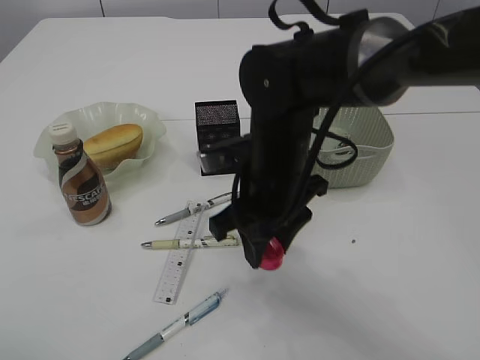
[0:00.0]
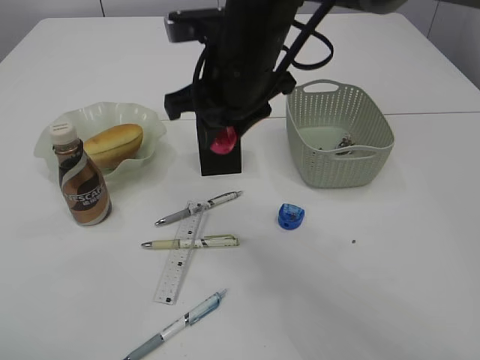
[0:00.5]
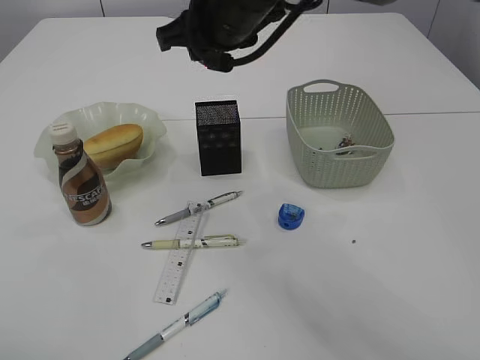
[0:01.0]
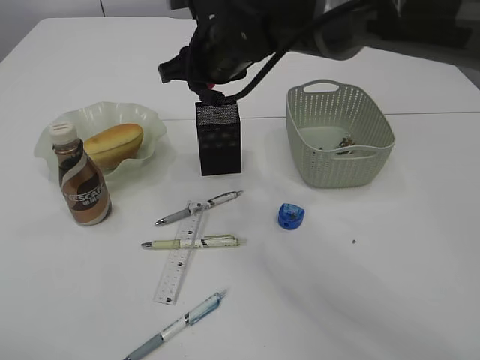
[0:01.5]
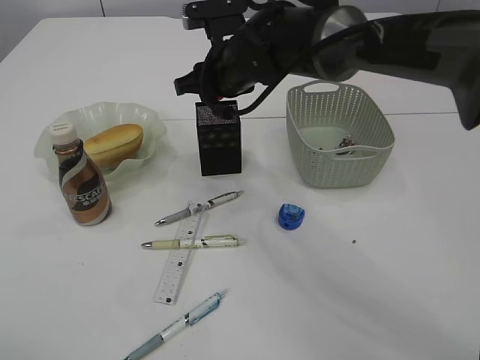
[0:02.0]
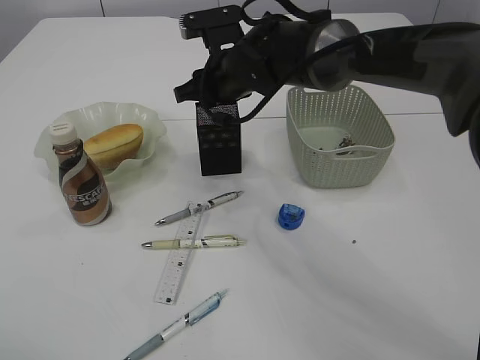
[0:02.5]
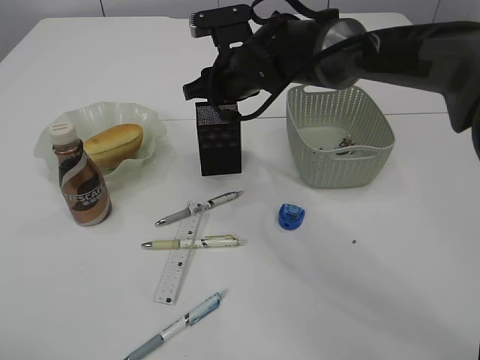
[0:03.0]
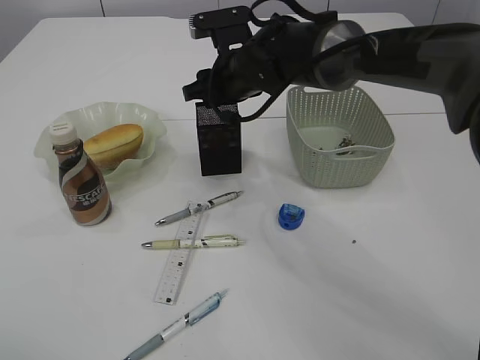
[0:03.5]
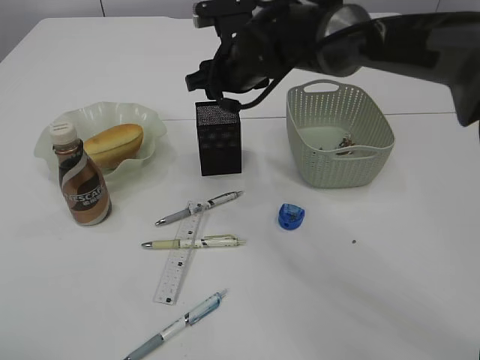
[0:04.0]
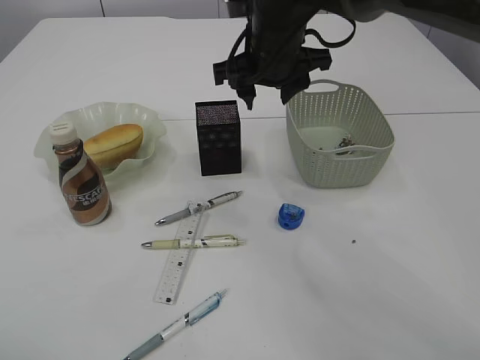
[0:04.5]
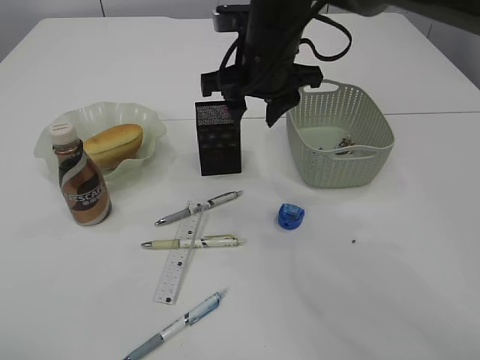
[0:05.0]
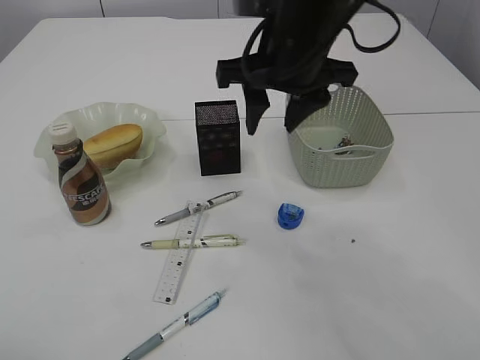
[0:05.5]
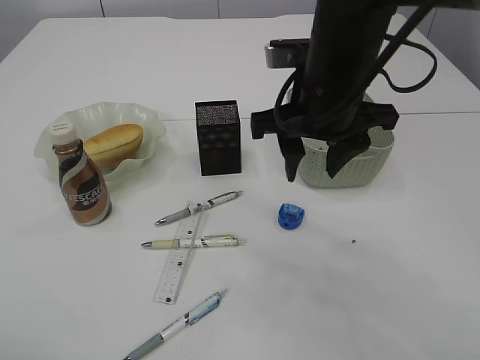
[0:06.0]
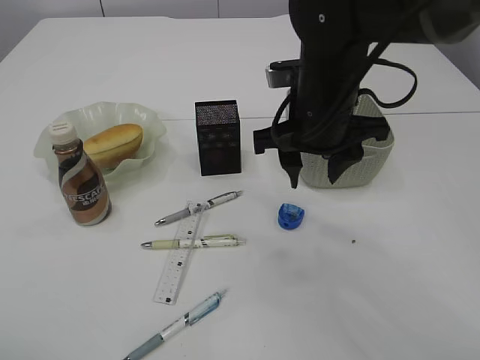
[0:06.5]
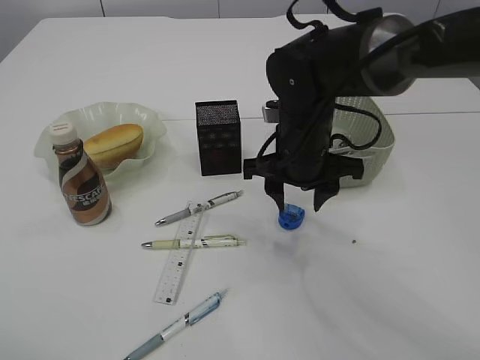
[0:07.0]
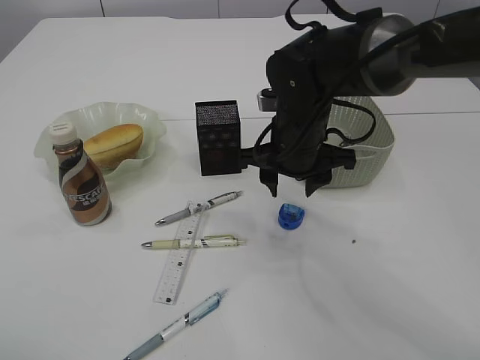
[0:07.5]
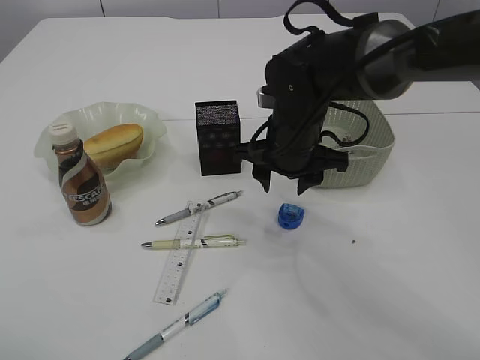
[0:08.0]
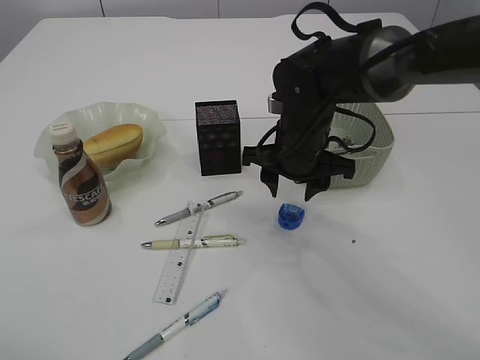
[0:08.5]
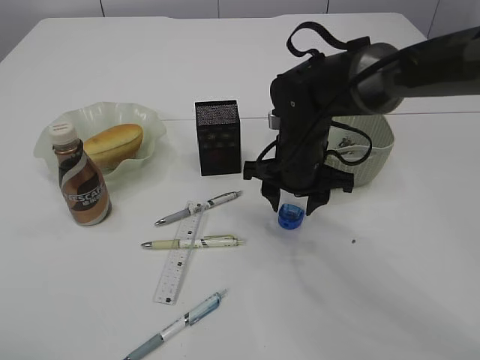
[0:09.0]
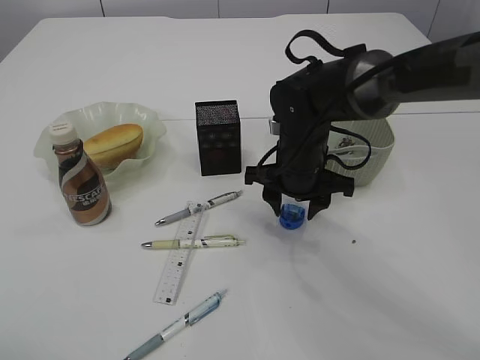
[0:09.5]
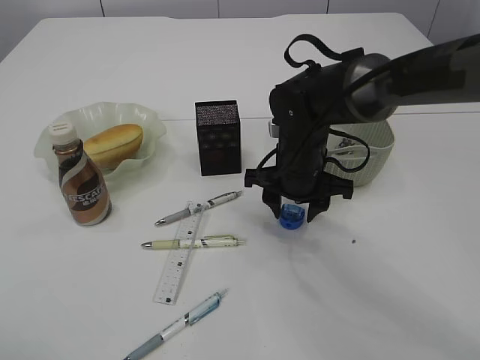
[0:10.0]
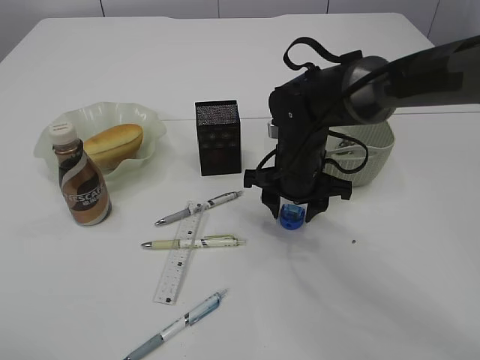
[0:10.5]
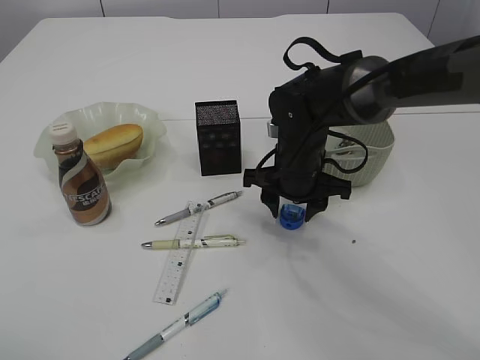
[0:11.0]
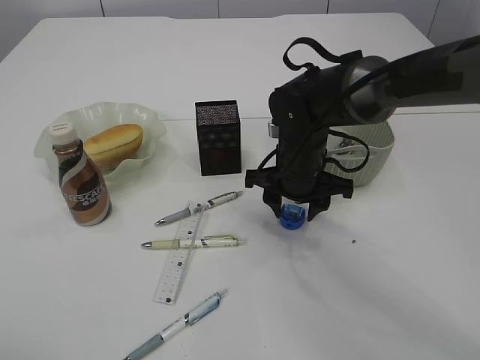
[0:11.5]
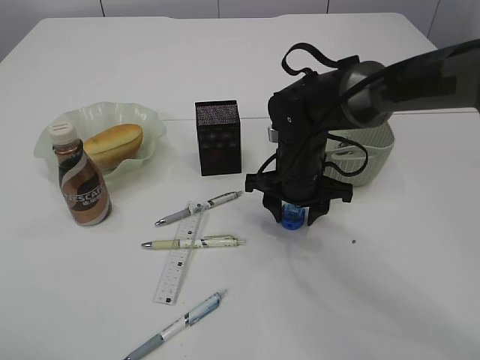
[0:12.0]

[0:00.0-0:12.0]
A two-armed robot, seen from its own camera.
Step, 0:00.5 to 0:04.0: Place the red pencil sharpener into the pen holder.
0:00.0 to 0:02.0: The right gripper goes some 15 cm forward.
0:02.0 to 0:04.0: The grippers move only a little.
0:04.0 to 0:06.0: The right gripper heads backward and to the right, covering approximately 15 cm.
0:06.0 to 0:08.0: The right gripper travels downward and forward by some 10 cm.
0:08.0 to 0:10.0: The grippers make only small movements.
0:10.0 to 0:12.0: Both grippers stay put.

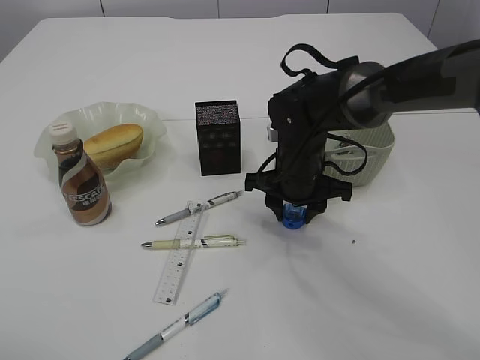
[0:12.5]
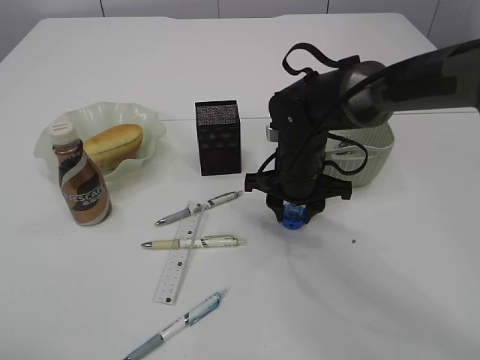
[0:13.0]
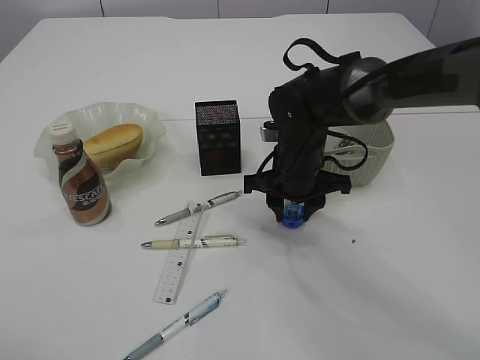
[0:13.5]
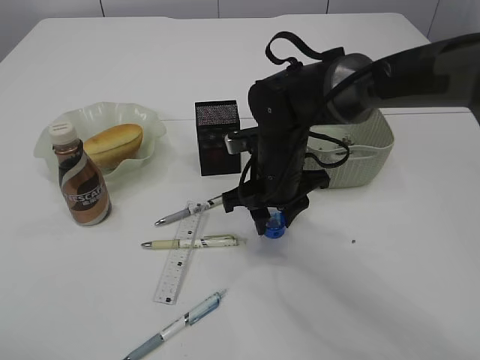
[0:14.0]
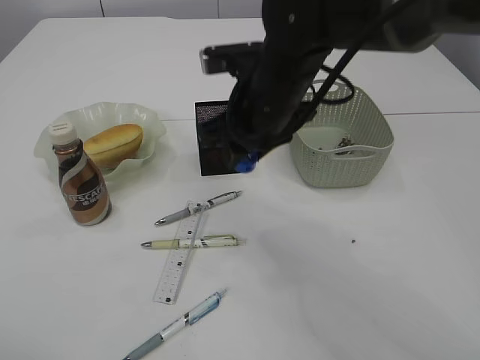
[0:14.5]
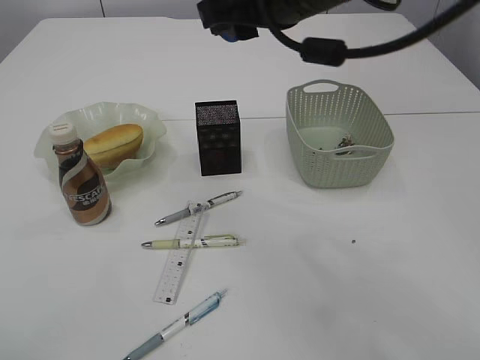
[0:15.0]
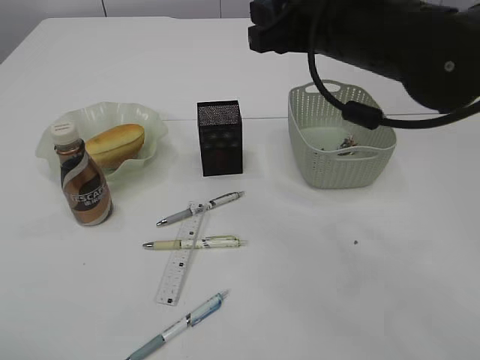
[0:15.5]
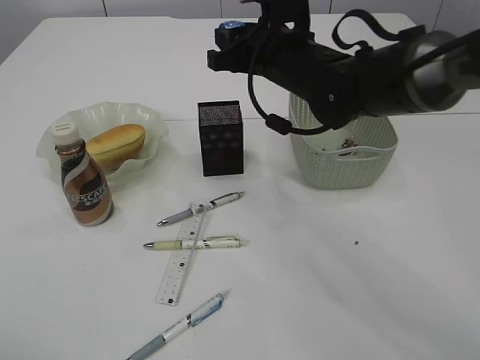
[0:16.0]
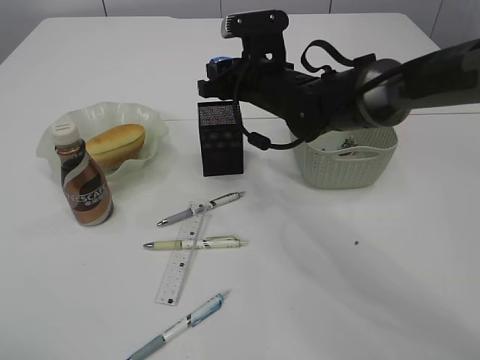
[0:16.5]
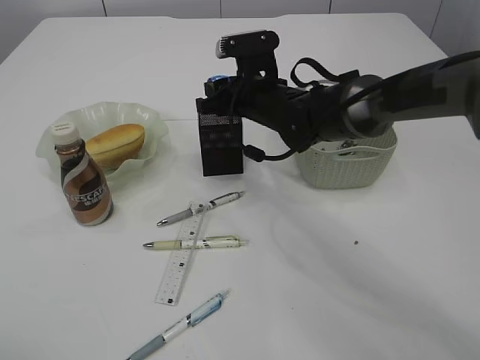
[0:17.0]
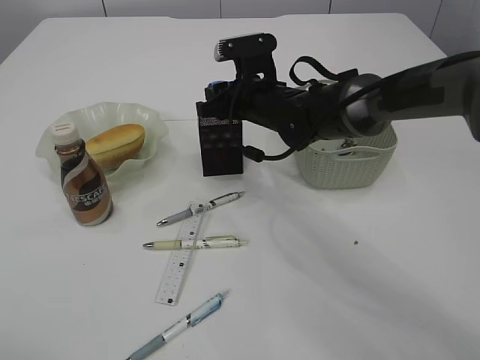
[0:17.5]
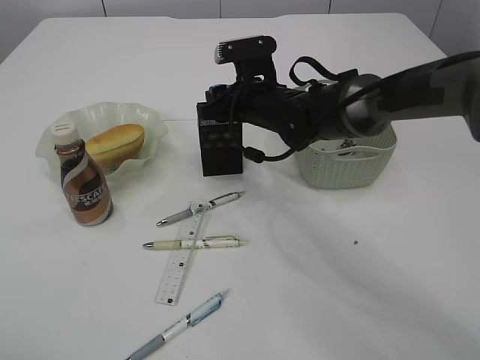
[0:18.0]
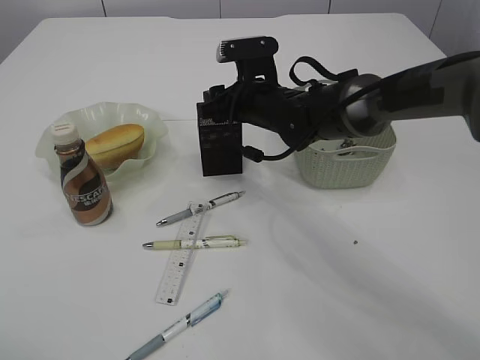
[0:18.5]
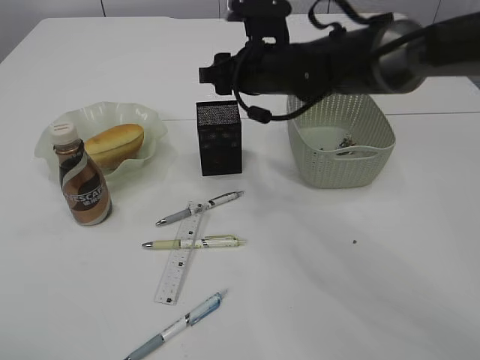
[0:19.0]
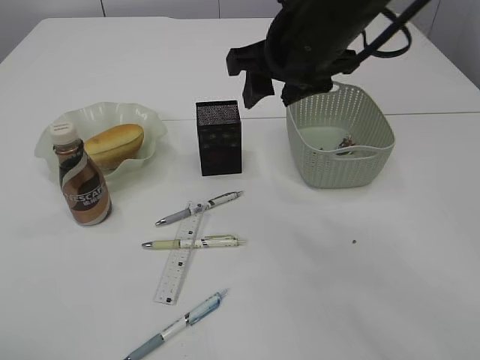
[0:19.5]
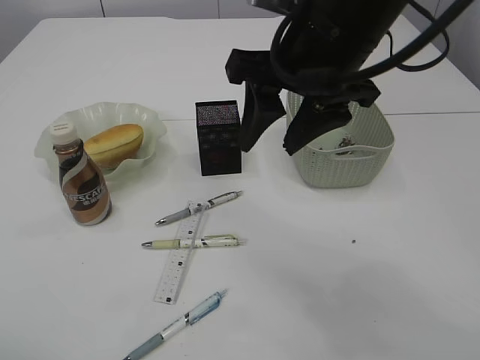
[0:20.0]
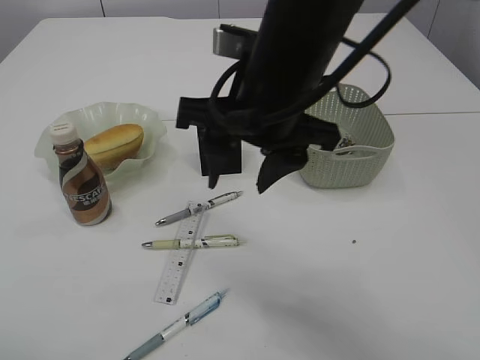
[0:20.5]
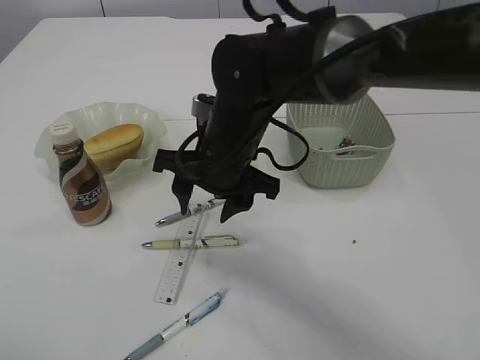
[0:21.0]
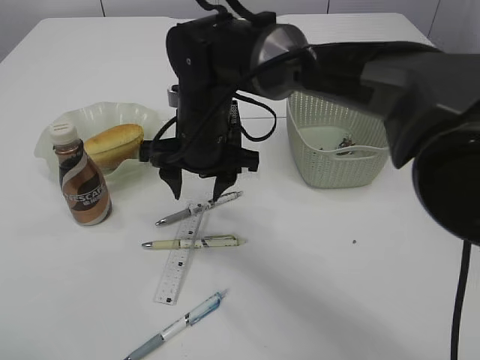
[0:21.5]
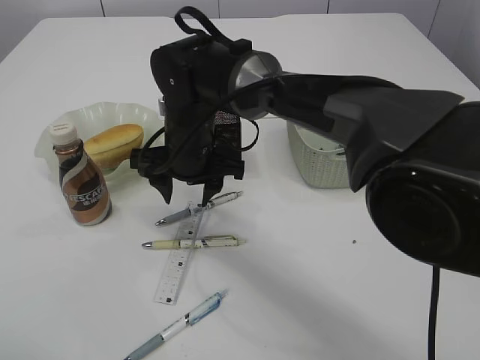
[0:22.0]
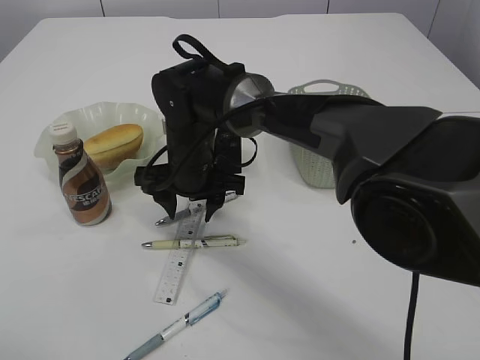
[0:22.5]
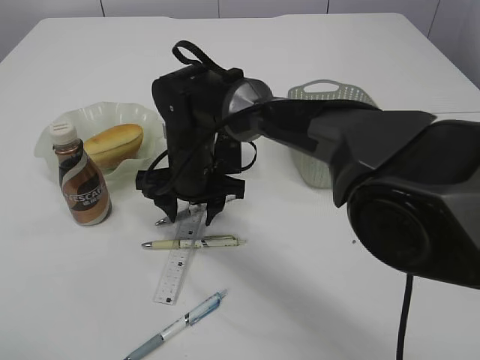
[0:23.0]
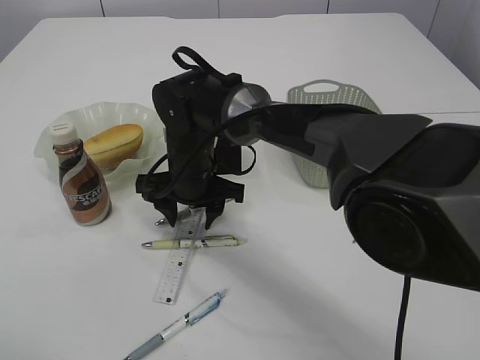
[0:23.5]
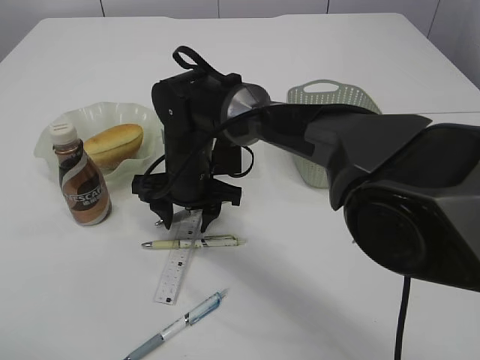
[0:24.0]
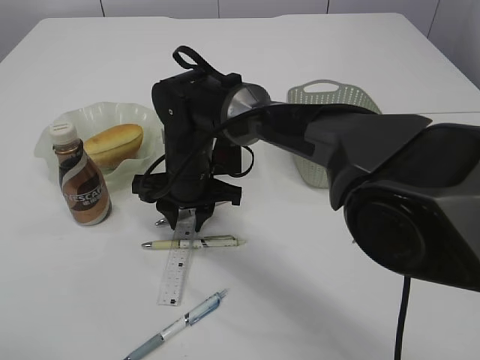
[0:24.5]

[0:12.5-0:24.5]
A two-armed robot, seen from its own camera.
Step, 0:14.5 to 0:19.0: Place the blue pencil sharpener into the pen holder.
0:12.5 to 0:14.5: The right gripper travels upward by approximately 10 cm.
0:14.5 to 0:16.5: The right gripper heads forward, covering roughly 10 cm, and travels upward and back again, roughly 10 cm each way.
0:16.5 to 0:18.5: The grippers make only small movements.
0:18.5 to 0:20.5: The right gripper is displaced backward and upward by roughly 20 cm.
0:20.5 to 0:22.5: The right gripper travels downward, forward and to the left by some 20 cm.
0:22.5 to 0:24.5: The two grippers keep their place.

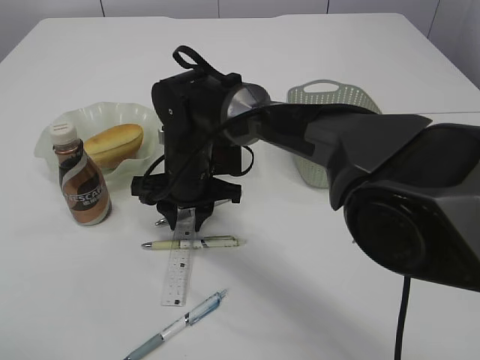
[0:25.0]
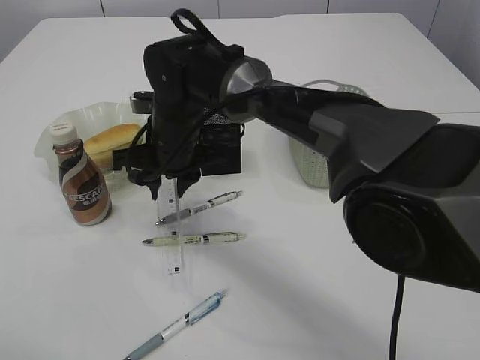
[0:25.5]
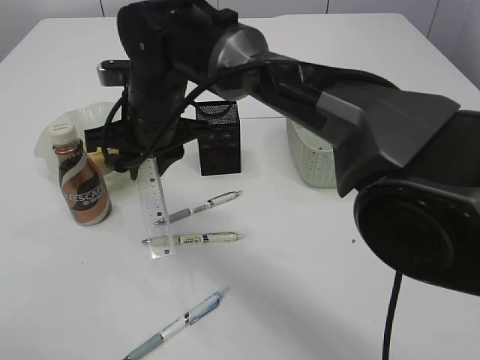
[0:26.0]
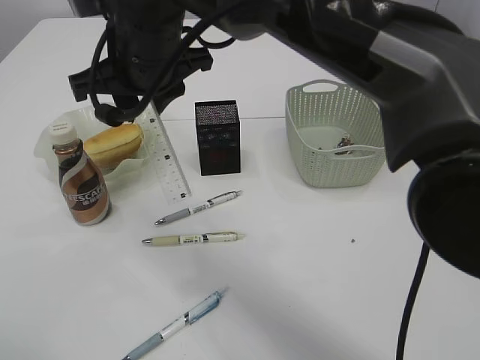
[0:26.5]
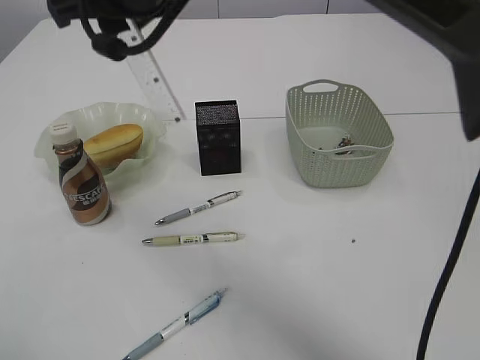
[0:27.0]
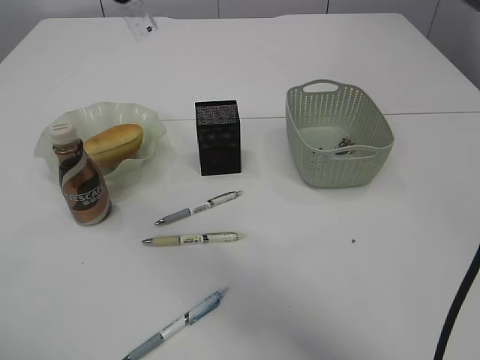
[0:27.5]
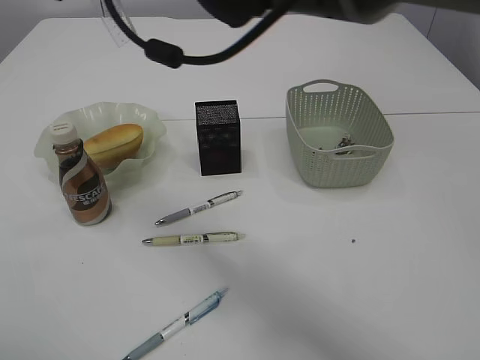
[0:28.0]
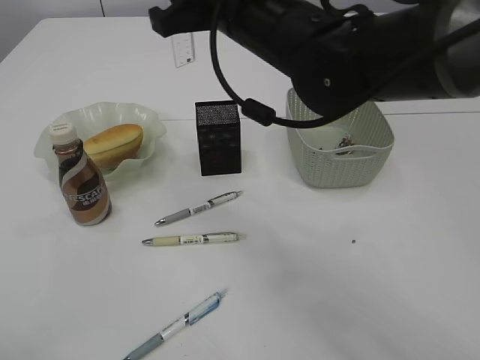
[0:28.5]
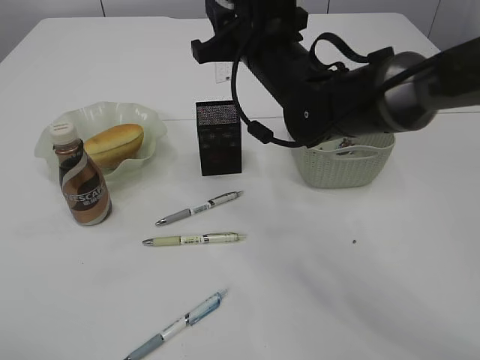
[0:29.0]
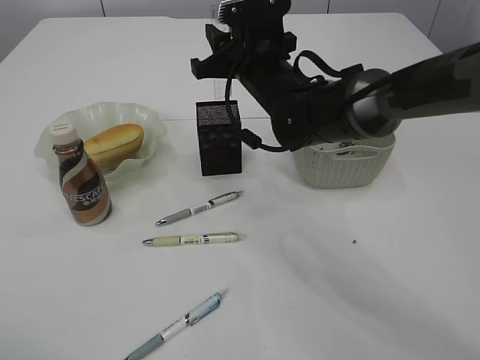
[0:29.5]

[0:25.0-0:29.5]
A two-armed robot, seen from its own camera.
0:25.0 to 0:27.0: The right gripper travels upward by approximately 25 cm.
0:27.0 to 0:29.5: The right gripper shifts some 20 cm downward, to the right and forward.
